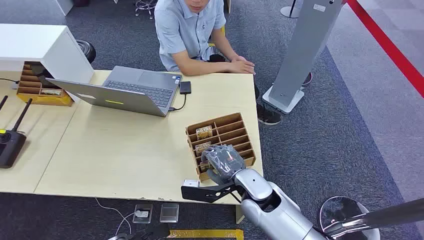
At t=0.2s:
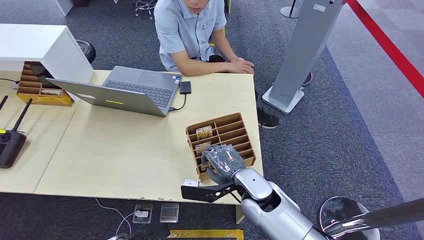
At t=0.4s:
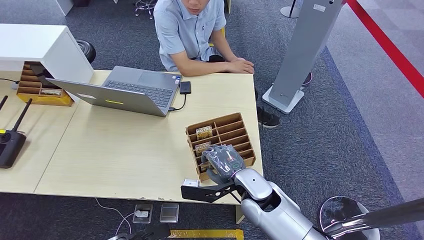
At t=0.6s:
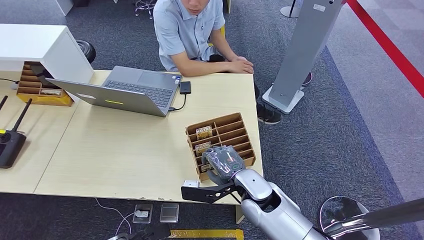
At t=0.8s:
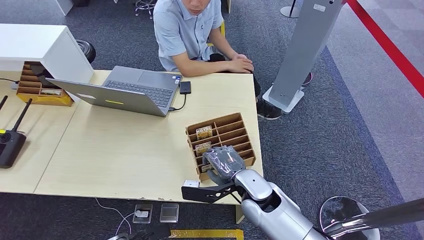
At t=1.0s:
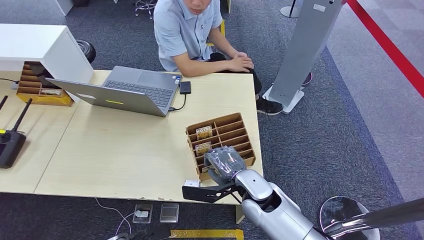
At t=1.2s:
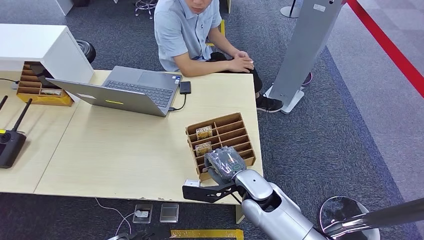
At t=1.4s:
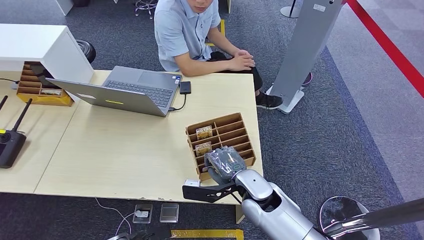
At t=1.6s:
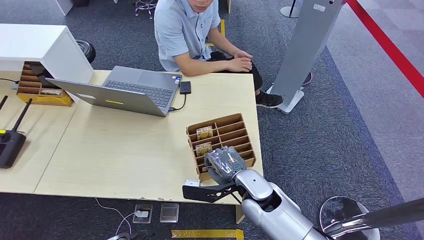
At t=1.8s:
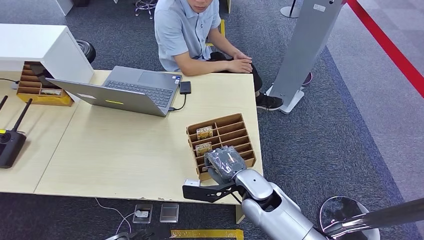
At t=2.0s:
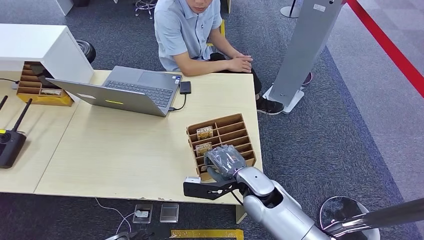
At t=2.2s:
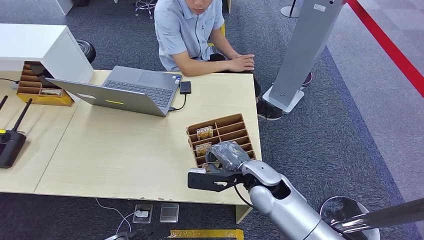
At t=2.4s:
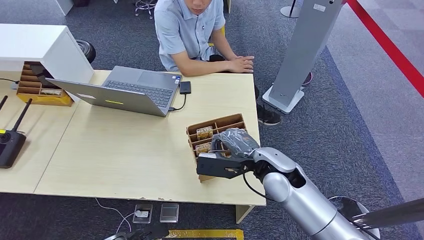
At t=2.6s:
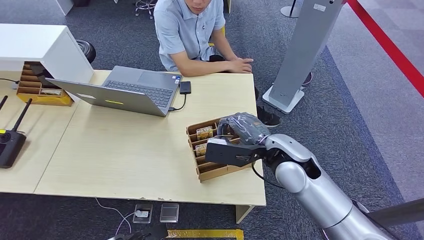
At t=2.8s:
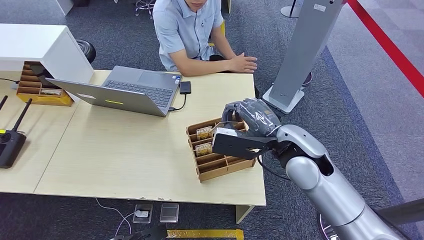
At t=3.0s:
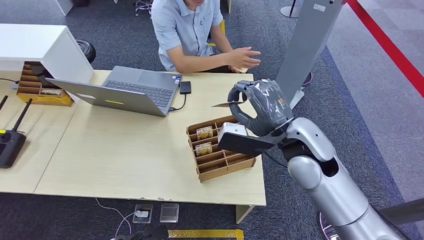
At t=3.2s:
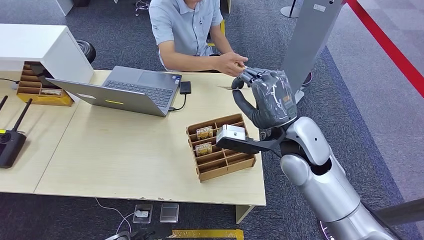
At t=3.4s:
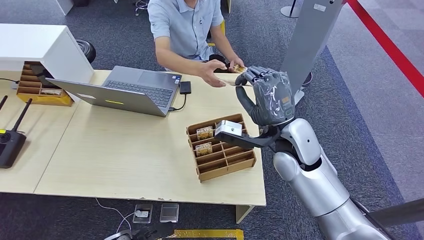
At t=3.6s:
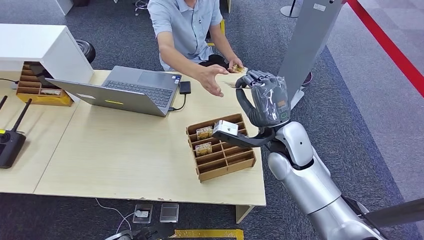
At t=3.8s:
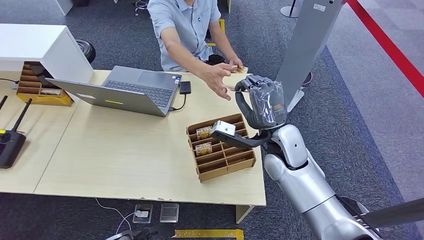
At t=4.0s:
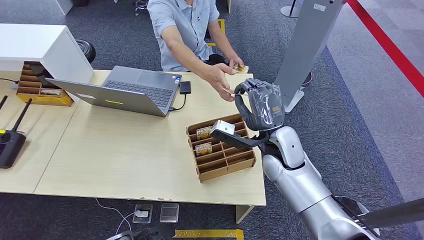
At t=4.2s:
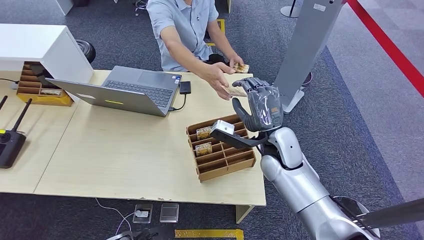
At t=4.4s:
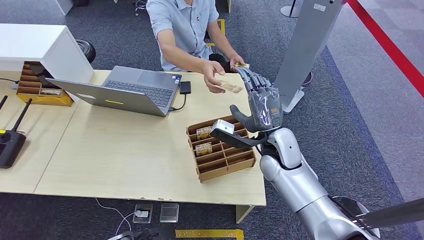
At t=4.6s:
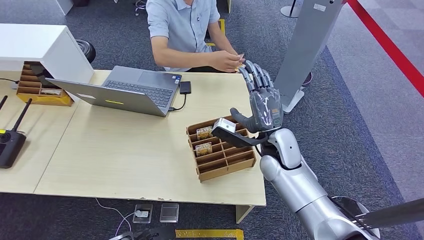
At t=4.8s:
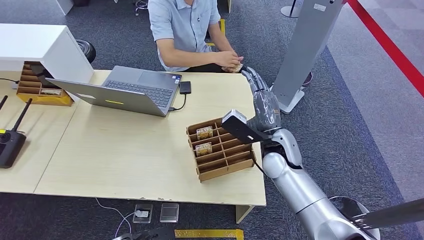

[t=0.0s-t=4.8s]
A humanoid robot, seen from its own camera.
Step, t=0.0s to t=2.4s: Pick up the key card from the card box.
Step, t=3.2s to t=4.8s: Hand the key card to the target.
t=1.6s to t=3.2s: The right hand moves upward, approximately 15 cm.
t=3.2s to t=4.8s: The right hand shifts some 10 cm downward.
